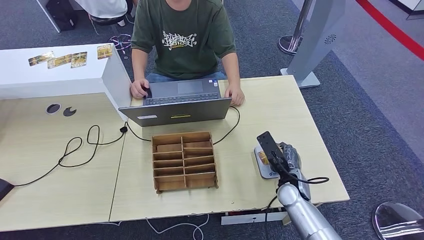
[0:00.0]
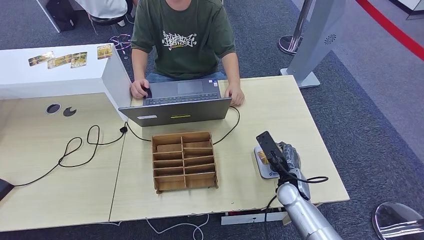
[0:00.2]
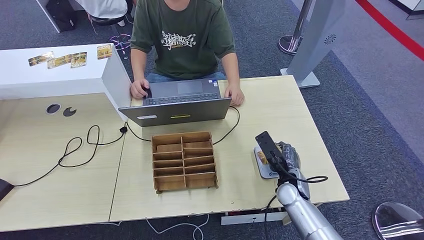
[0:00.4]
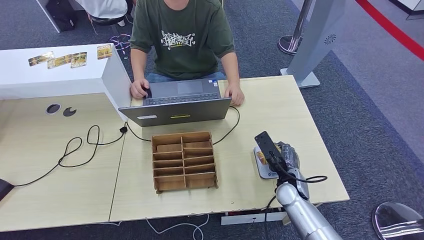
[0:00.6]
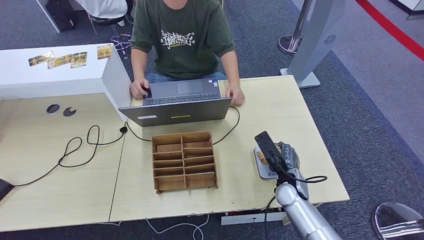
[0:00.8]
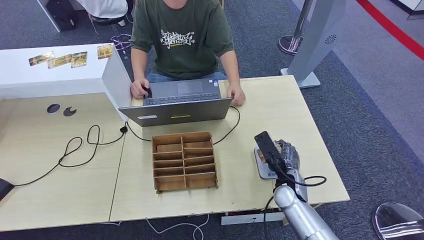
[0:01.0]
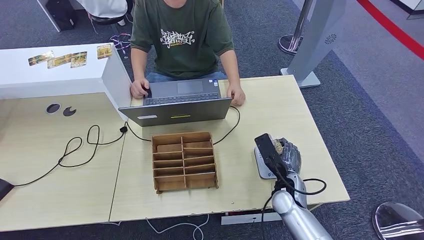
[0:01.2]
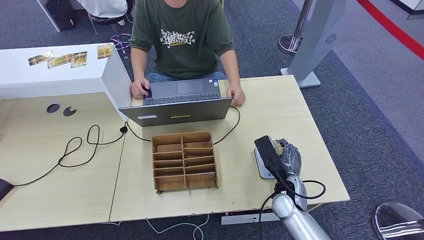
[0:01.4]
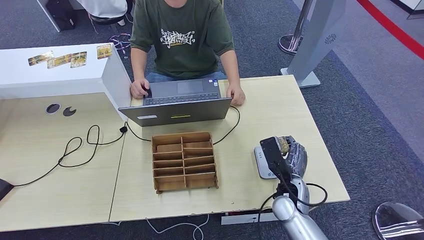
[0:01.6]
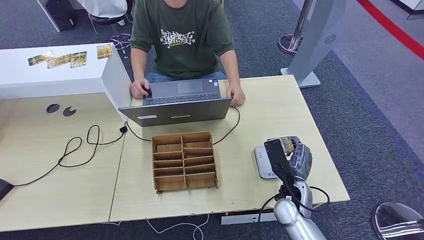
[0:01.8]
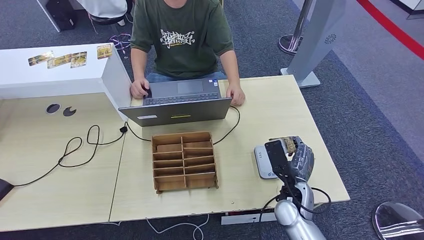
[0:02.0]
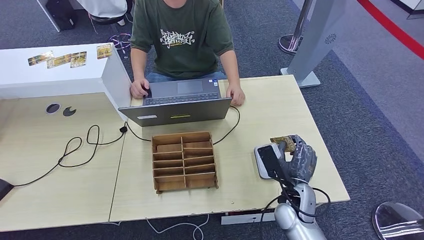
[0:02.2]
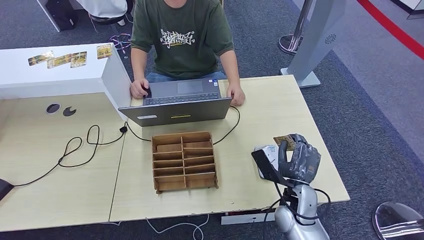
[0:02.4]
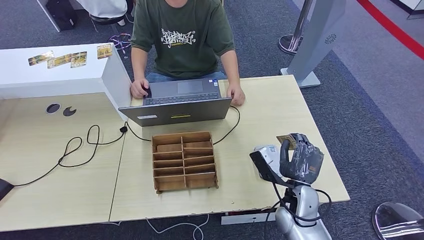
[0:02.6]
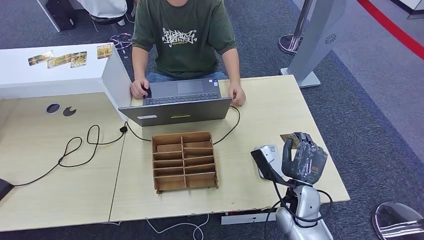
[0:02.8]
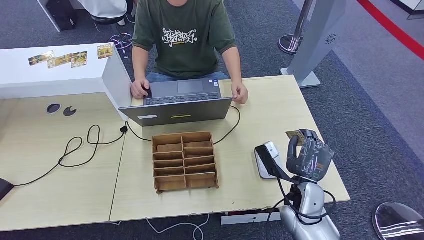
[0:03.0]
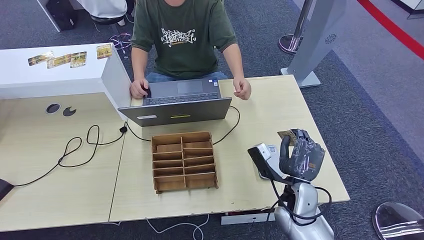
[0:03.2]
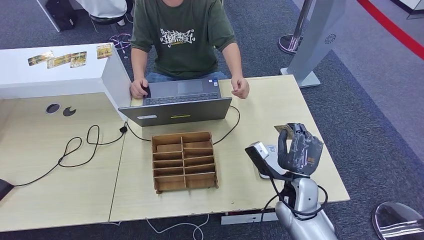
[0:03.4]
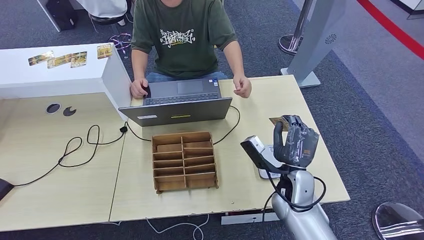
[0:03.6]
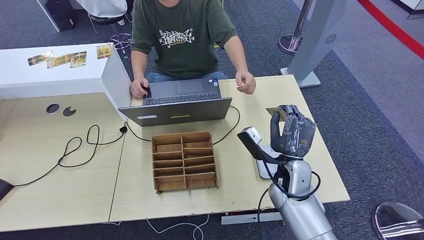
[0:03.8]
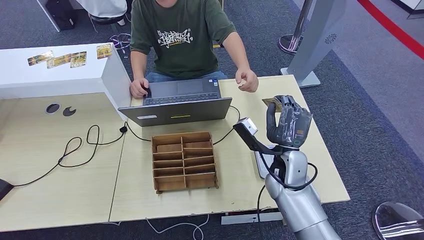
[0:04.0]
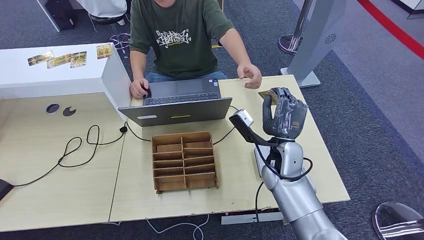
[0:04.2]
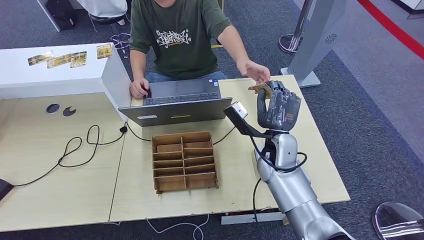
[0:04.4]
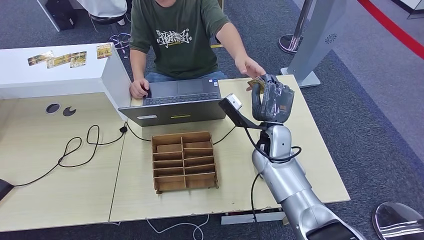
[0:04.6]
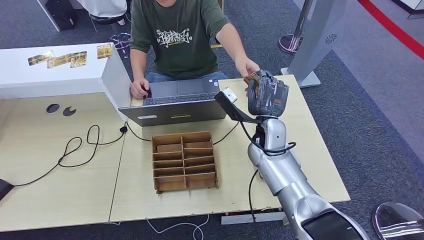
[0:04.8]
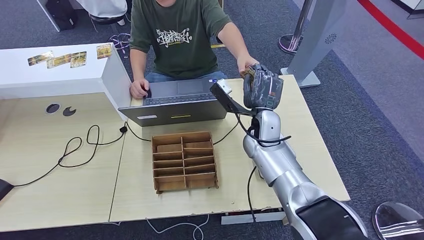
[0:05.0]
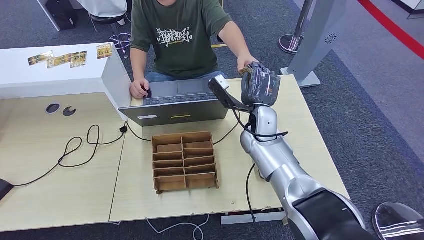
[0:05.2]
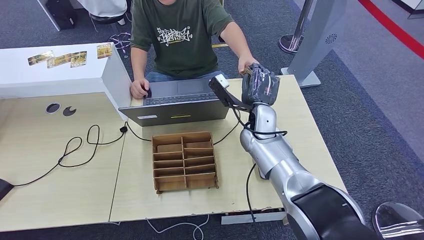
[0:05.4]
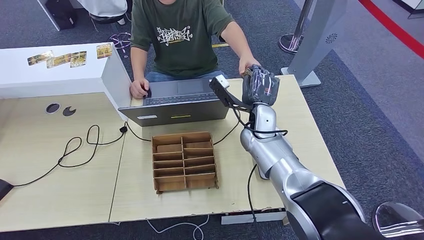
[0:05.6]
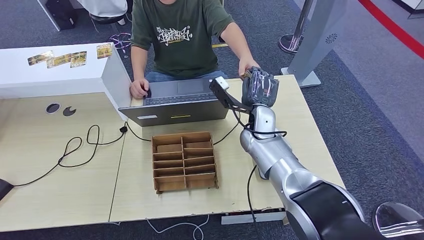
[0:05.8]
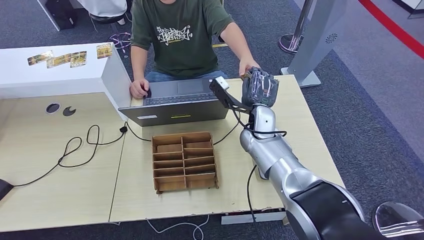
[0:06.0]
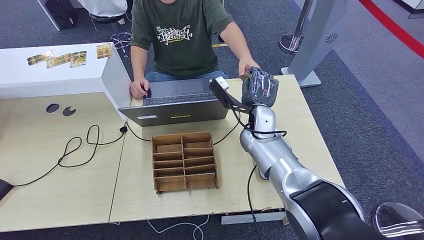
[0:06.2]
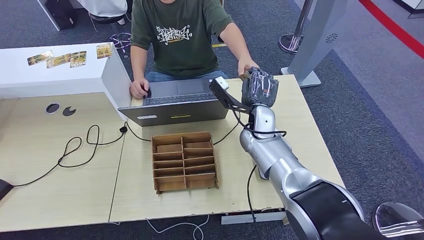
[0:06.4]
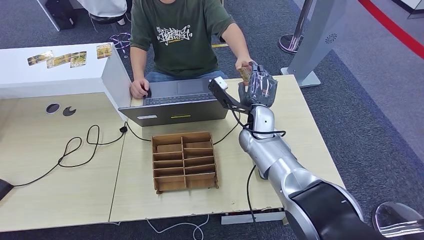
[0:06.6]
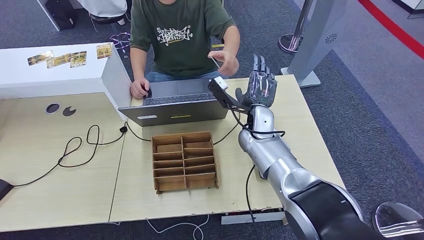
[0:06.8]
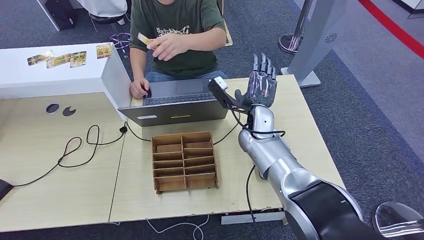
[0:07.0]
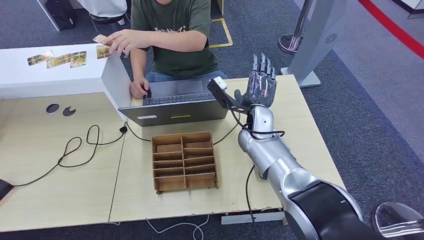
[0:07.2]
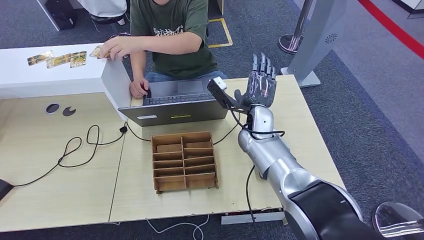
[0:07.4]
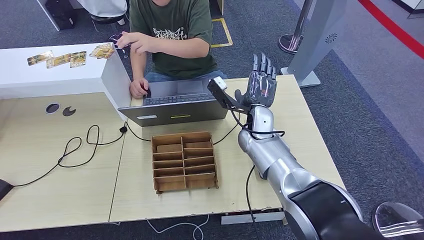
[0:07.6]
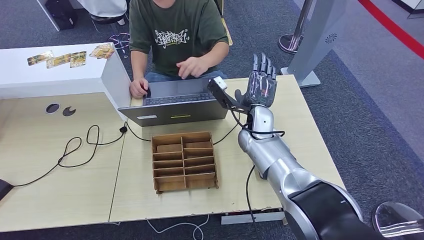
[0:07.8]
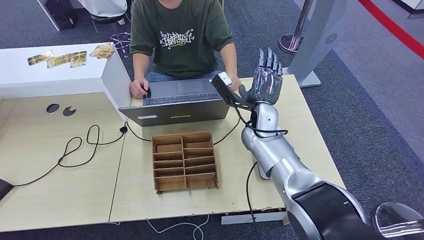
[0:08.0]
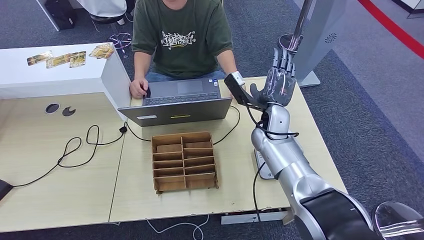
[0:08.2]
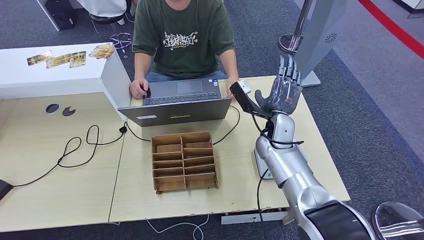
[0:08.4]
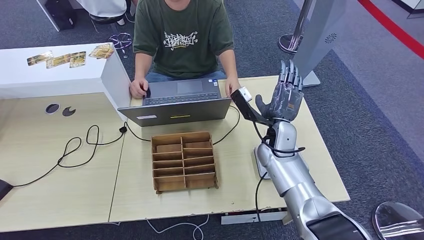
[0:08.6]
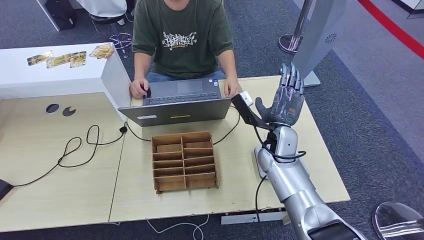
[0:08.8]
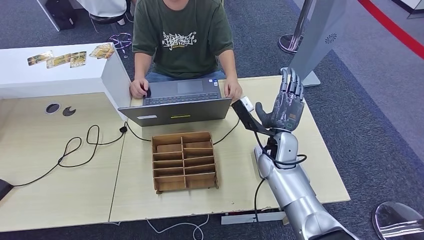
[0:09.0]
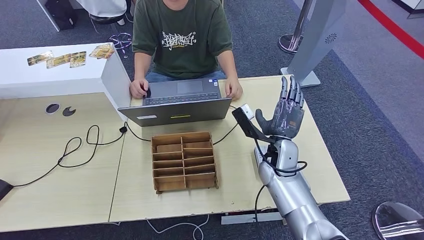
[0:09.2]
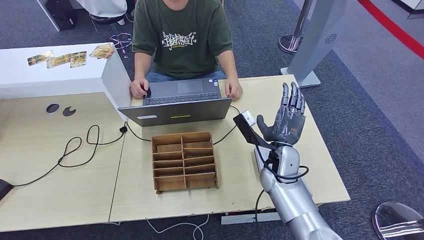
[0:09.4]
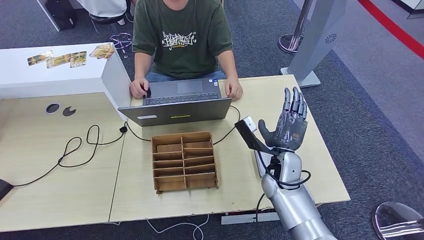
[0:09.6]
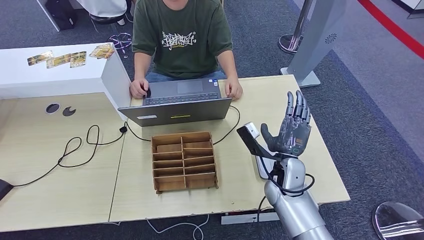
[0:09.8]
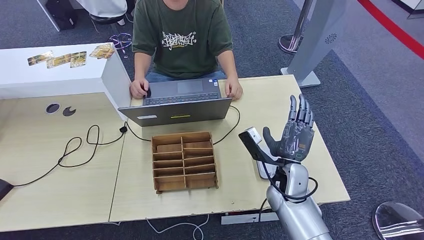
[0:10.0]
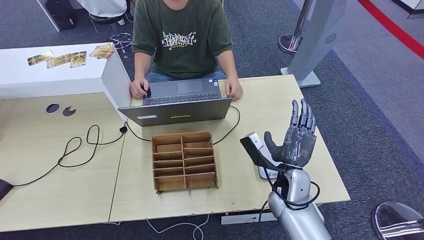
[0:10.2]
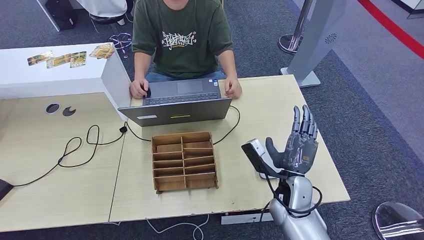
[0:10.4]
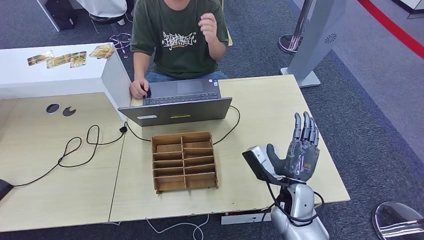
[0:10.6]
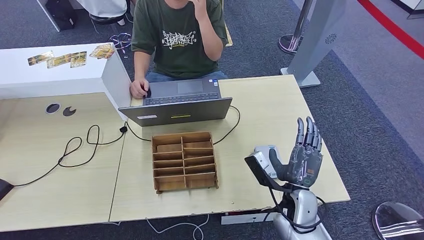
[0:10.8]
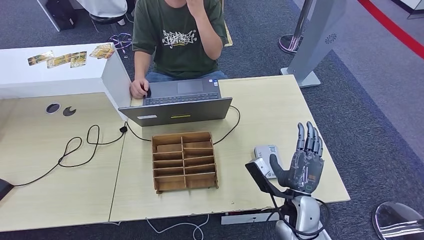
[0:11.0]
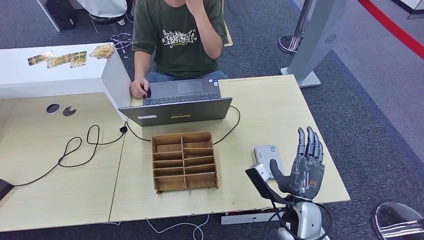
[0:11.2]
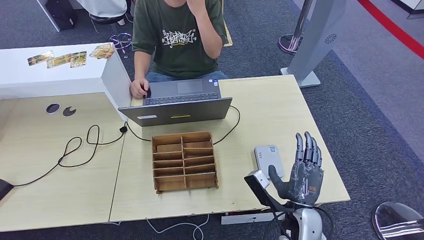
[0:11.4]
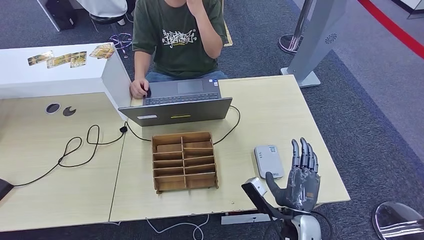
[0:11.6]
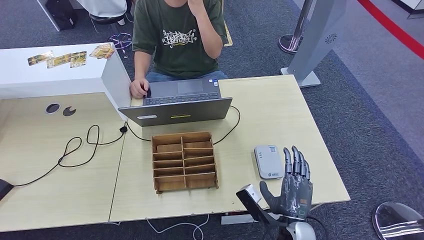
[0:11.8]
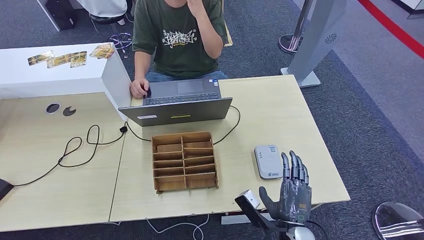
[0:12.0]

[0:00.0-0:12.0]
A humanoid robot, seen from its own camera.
Step, 0:00.0 to 0:03.4: Place the ID card on the card reader.
Step, 0:03.8 to 0:07.8: Hand the ID card to the person.
0:03.0 to 0:04.4: The right hand heads forward and upward, covering some 15 cm.
0:04.4 to 0:06.0: The right hand shifts about 5 cm forward.
0:06.0 to 0:07.6: Both hands stay about where they are.
0:07.6 to 0:09.0: The right hand shifts about 5 cm backward.
0:09.0 to 0:10.4: The right hand goes roughly 10 cm backward.
0:10.4 to 0:12.0: The right hand is displaced backward by some 10 cm.

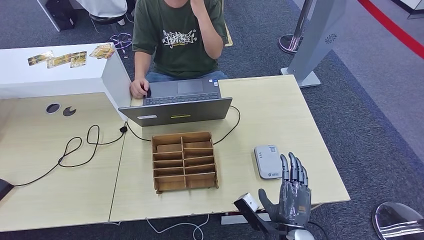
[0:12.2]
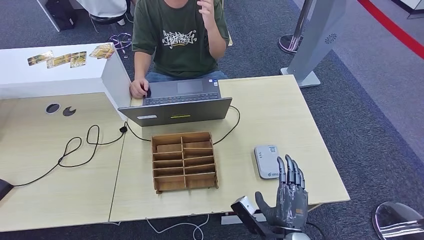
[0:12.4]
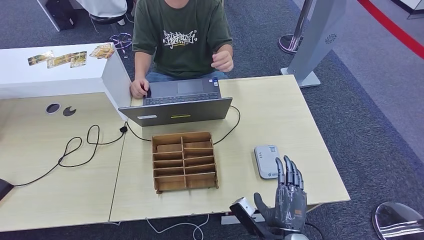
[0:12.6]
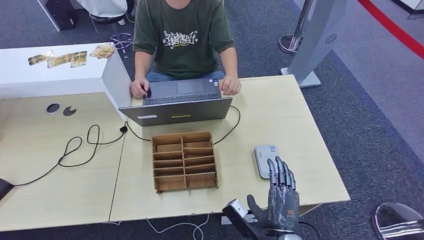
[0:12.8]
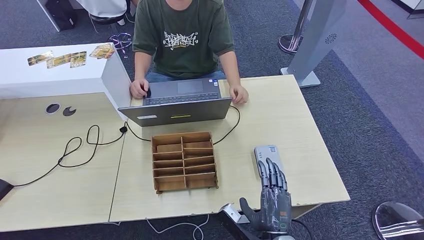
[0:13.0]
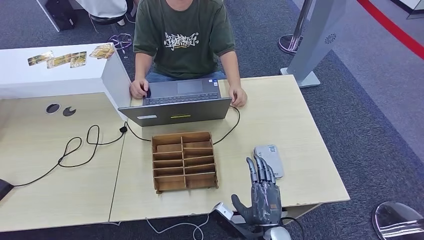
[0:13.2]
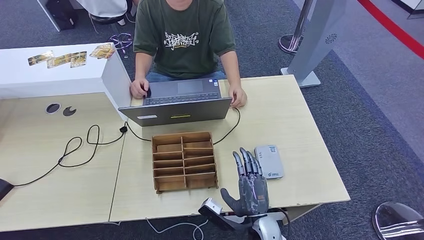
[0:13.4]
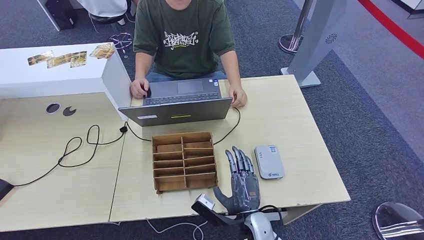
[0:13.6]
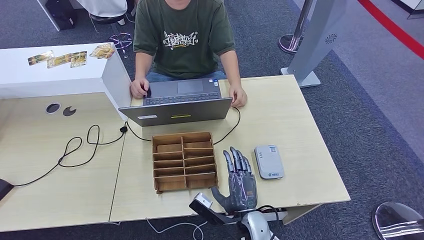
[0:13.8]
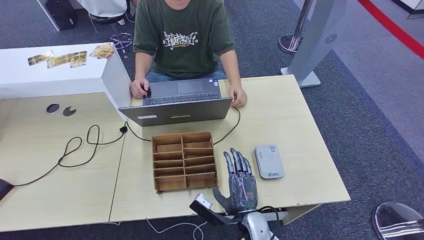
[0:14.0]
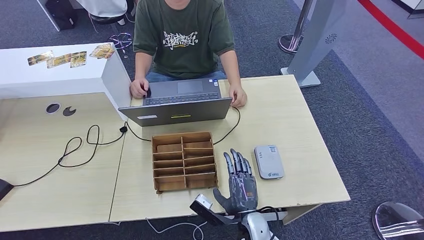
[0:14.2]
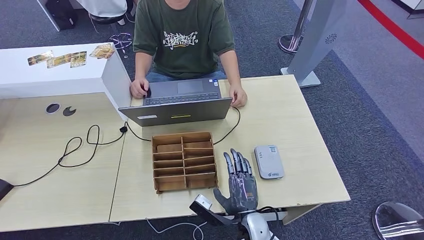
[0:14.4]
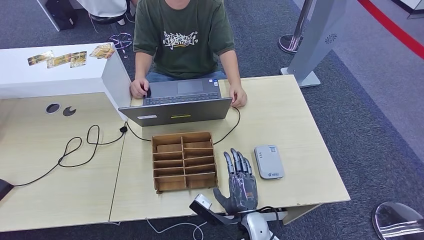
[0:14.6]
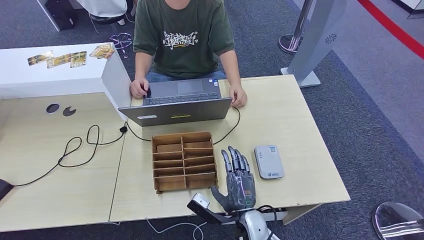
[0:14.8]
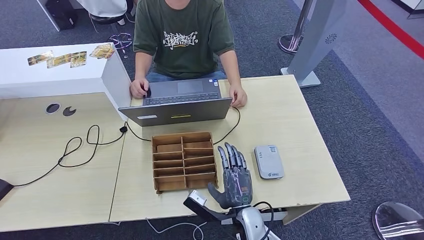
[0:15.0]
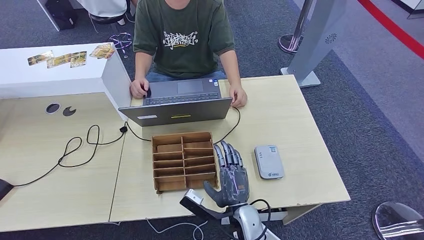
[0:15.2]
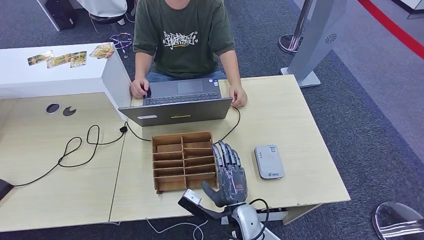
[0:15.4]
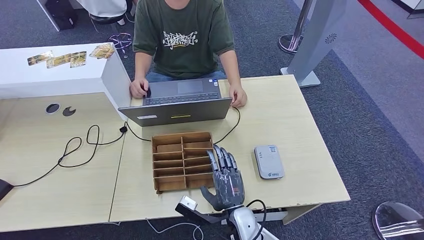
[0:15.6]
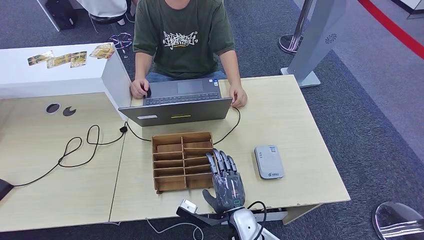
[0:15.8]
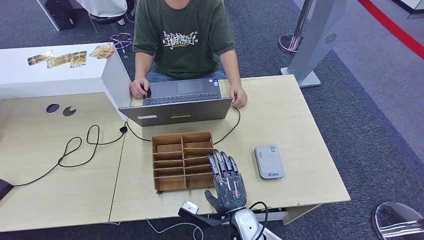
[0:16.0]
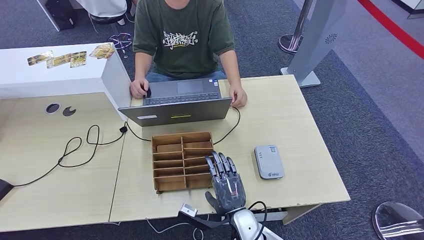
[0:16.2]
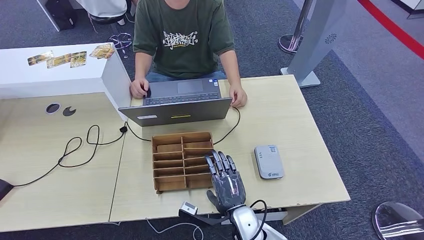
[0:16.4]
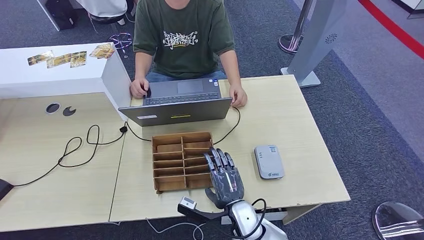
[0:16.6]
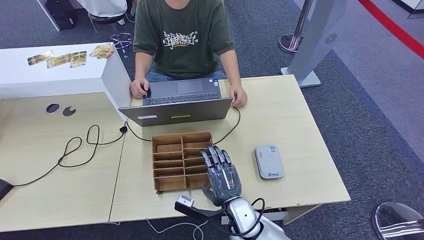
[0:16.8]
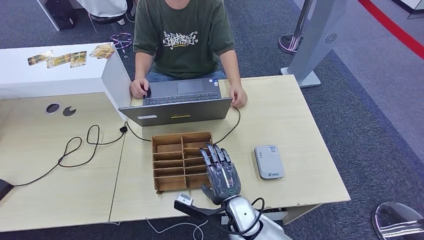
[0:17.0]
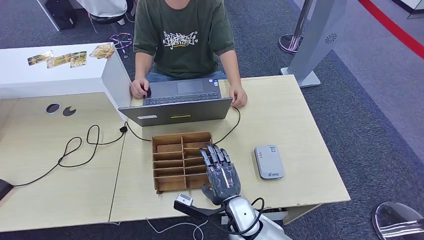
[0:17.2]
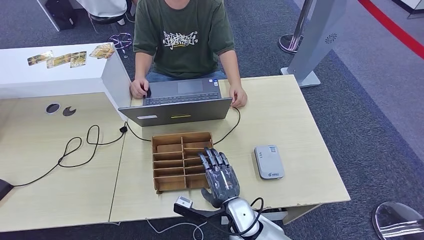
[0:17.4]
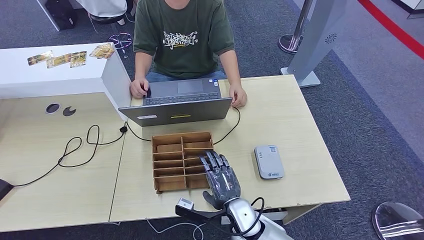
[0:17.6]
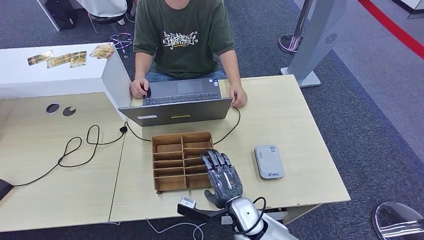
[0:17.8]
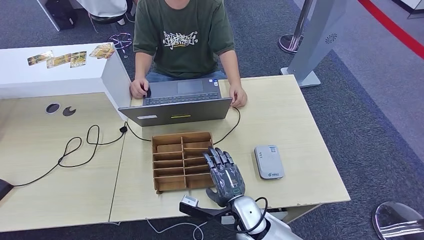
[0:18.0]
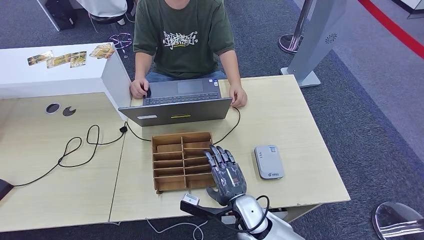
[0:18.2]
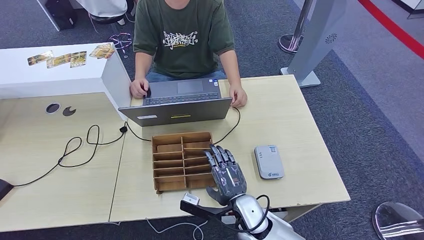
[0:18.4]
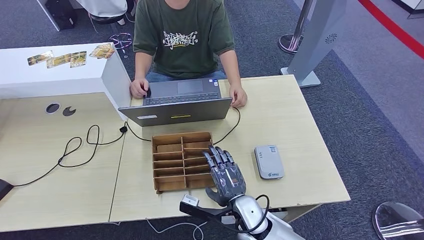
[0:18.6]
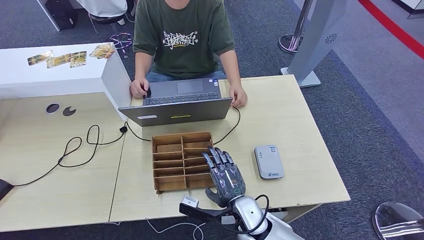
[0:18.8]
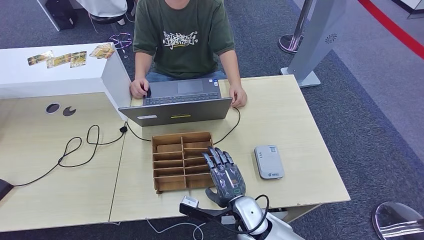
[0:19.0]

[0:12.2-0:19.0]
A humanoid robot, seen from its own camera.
0:12.2 to 0:13.6: The right hand travels to the left by roughly 10 cm.
0:13.6 to 0:16.2: The hands move only a little.
0:16.2 to 0:19.0: The hands stay close to where they were, moving slightly.
